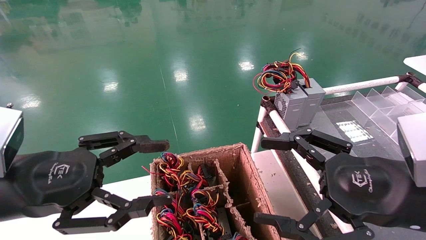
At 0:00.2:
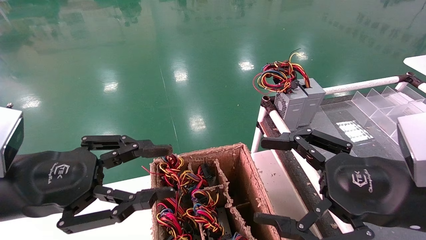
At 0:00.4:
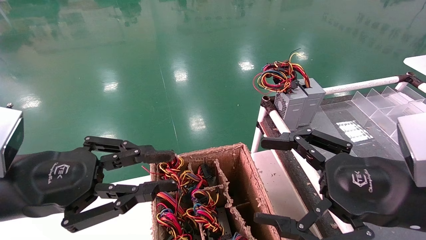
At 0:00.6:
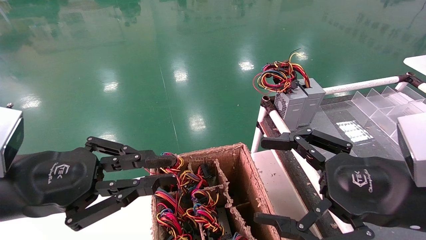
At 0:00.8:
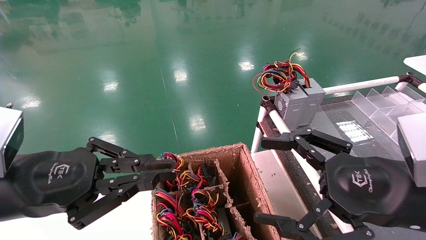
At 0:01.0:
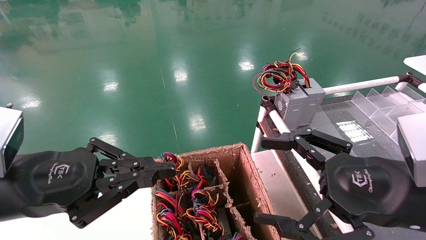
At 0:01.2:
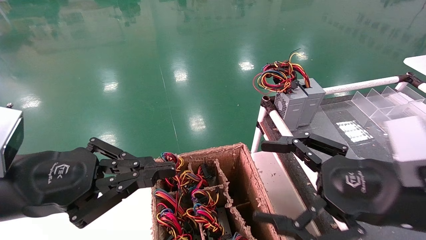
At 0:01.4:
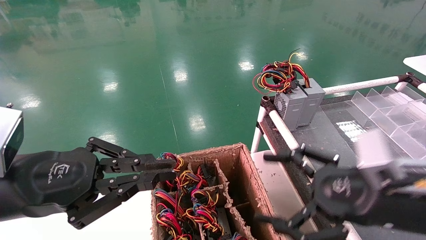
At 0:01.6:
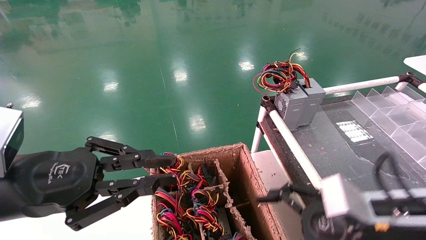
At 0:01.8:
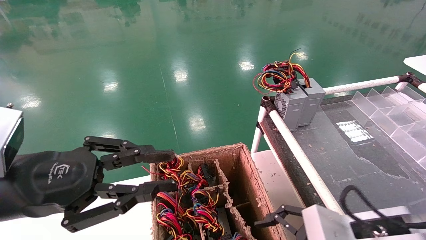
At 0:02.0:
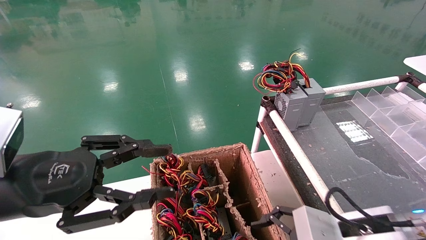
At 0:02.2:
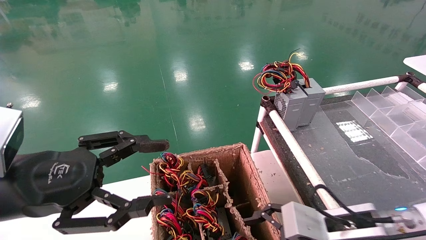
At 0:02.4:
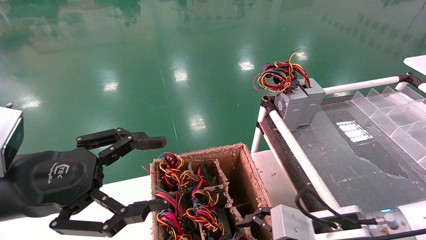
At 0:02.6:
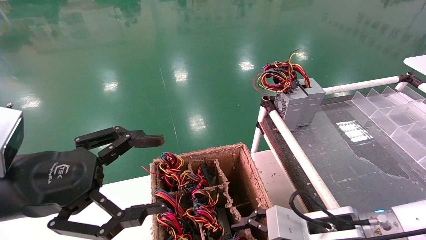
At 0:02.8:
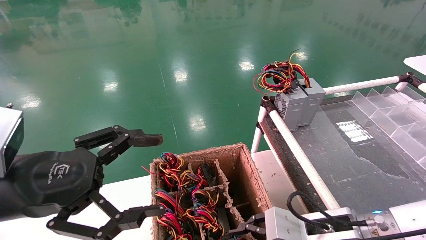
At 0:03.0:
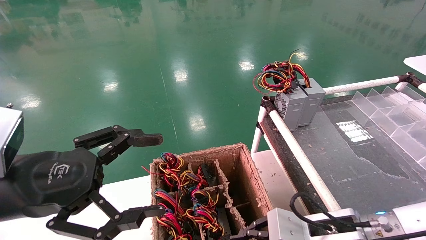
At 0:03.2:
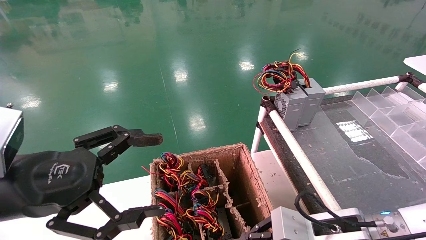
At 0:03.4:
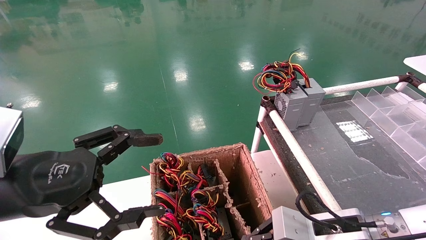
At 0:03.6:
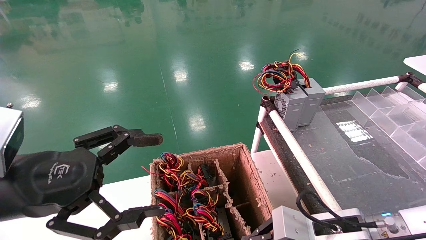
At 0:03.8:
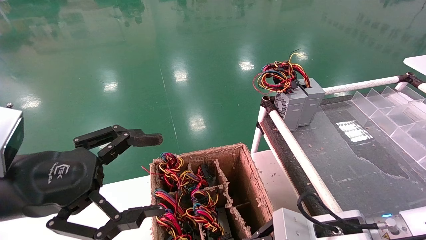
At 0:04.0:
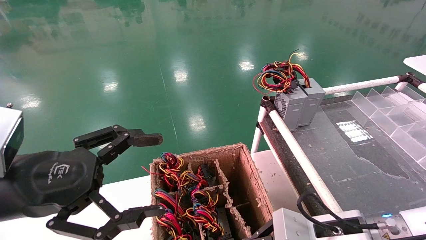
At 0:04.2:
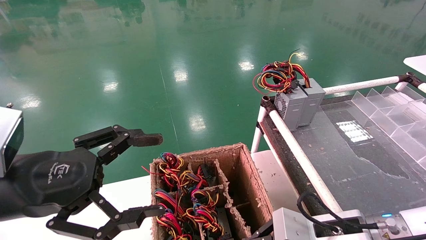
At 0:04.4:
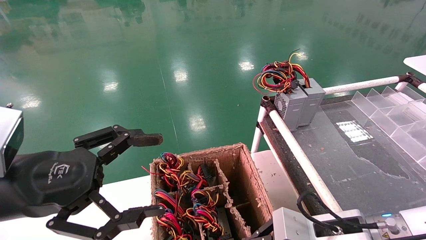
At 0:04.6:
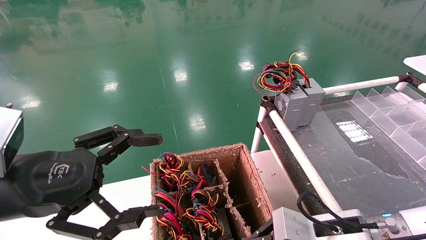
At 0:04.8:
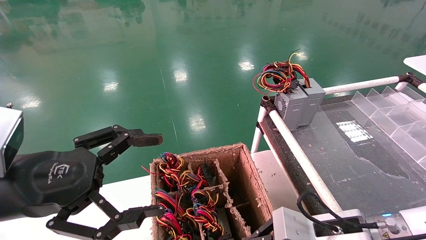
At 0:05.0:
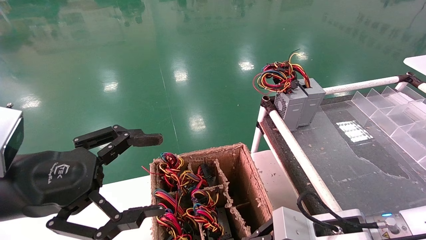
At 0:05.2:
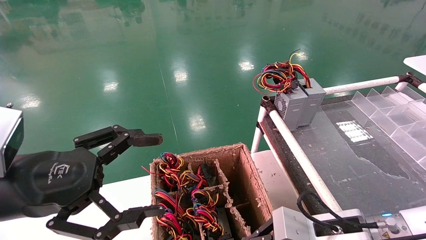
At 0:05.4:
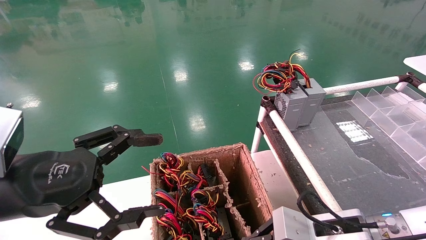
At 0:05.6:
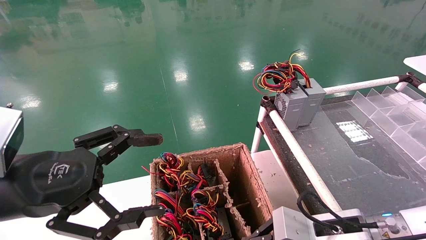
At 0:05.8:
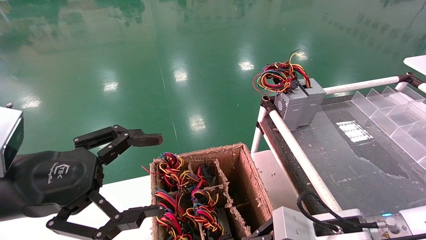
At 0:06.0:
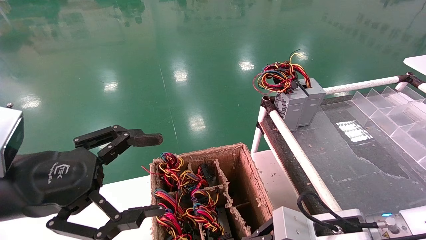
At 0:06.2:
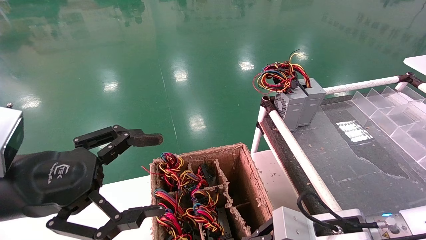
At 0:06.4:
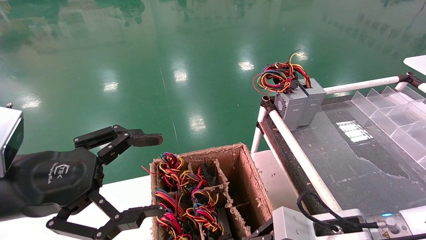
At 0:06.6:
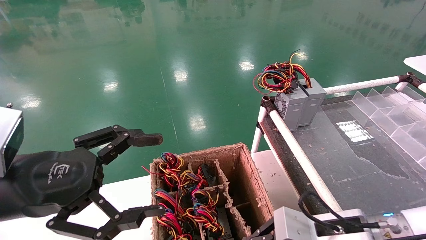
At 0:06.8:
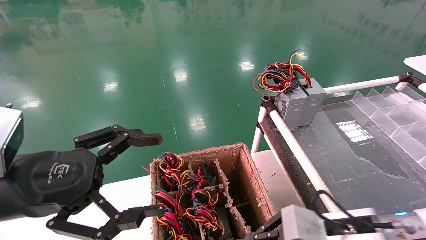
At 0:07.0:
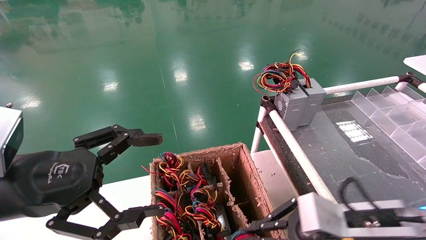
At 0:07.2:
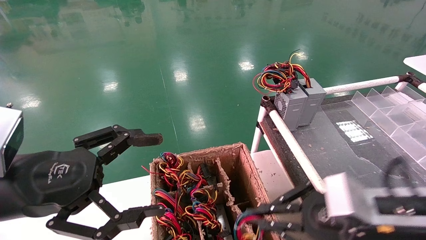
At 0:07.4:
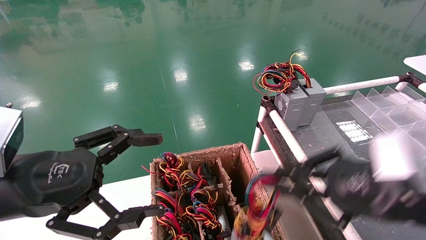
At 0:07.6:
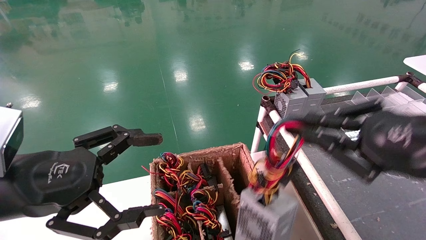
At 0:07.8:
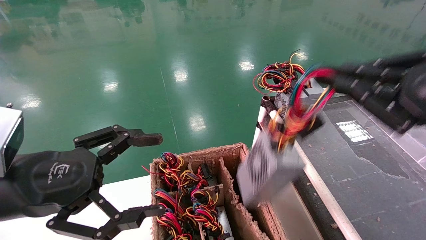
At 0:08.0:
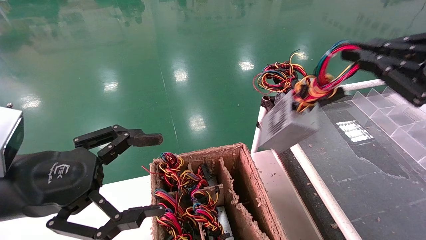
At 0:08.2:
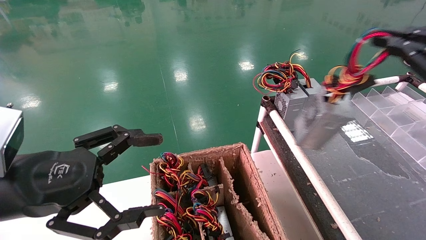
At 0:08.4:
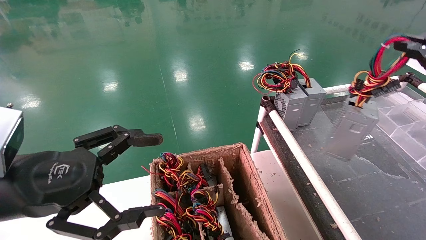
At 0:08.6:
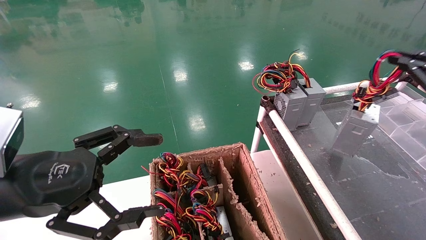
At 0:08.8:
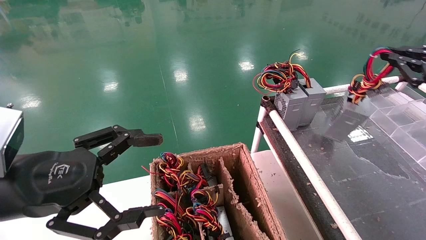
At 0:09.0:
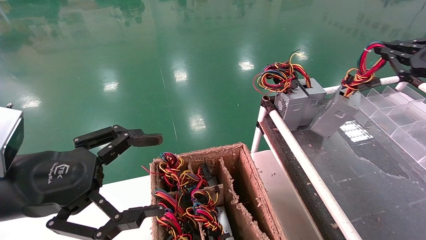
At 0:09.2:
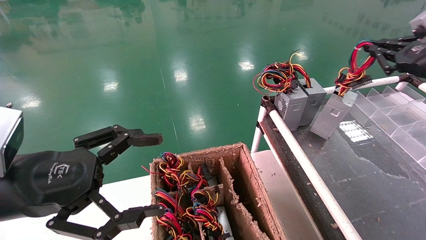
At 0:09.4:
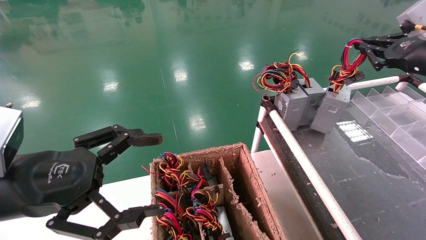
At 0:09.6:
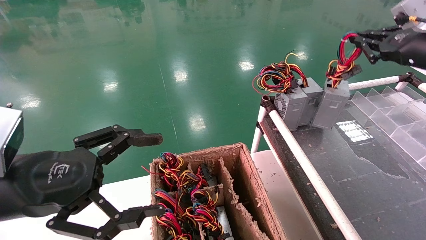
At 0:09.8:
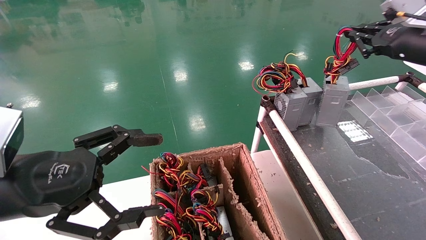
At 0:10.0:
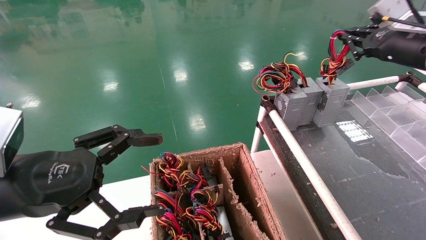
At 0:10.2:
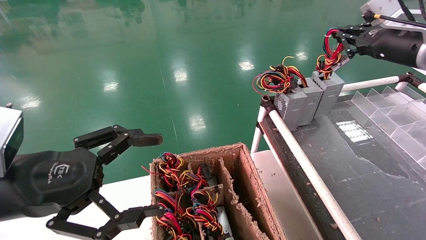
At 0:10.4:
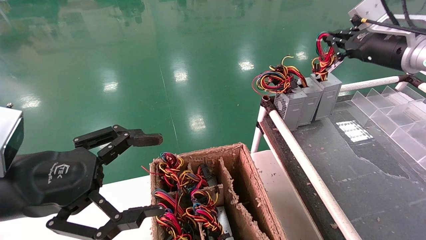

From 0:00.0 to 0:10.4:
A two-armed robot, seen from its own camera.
Step, from 0:01.0 to 0:03.6: Grab and lift the power supply from the large box.
From 0:00.0 to 0:01.4: The left gripper closes up.
From 0:01.4 to 0:03.0: The right gripper is displaced downward by approximately 10 cm, and closes. The left gripper opens.
From 0:03.0 to 0:04.4: The right gripper closes.
From 0:04.4 to 0:06.0: Both grippers stay put.
From 0:06.0 to 0:07.4: The right gripper is displaced upward and to the right by approximately 15 cm.
From 0:07.4 to 0:09.0: The right gripper goes some 25 cm to the right, forward and upward.
From 0:09.0 to 0:10.4: The right gripper travels forward and to the left by roughly 10 cm.

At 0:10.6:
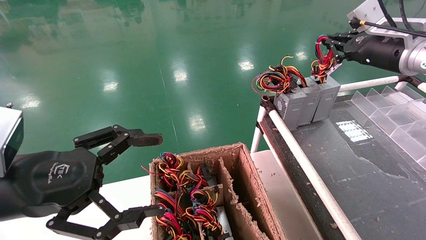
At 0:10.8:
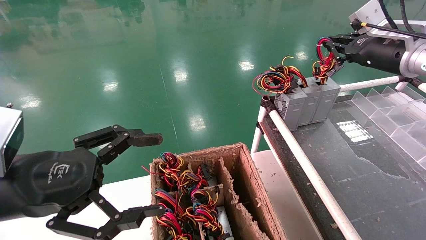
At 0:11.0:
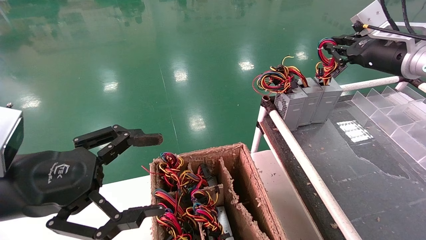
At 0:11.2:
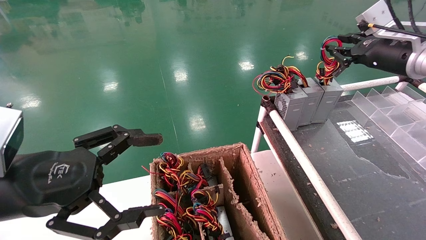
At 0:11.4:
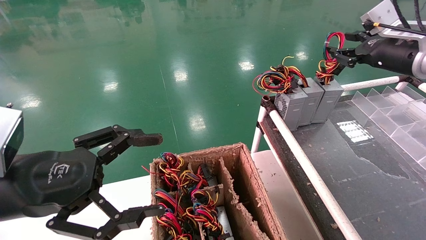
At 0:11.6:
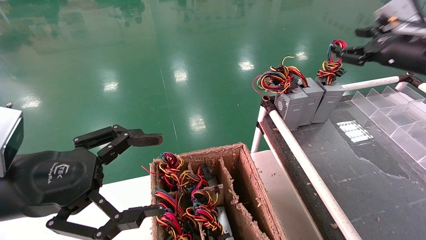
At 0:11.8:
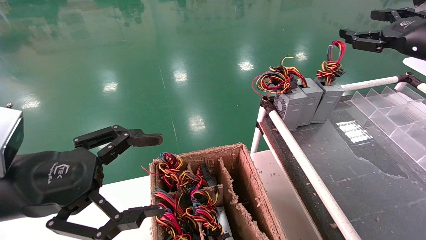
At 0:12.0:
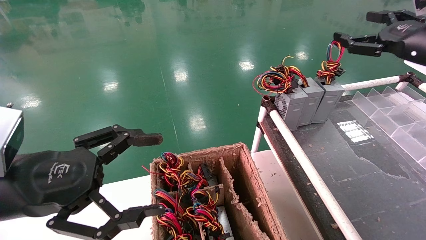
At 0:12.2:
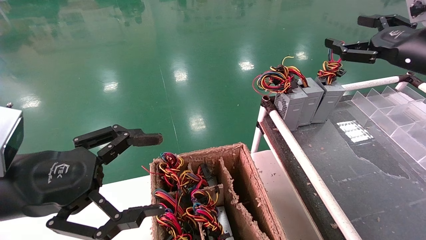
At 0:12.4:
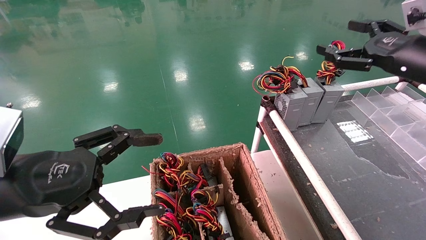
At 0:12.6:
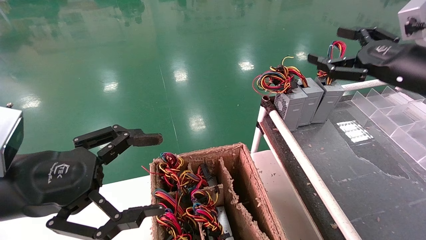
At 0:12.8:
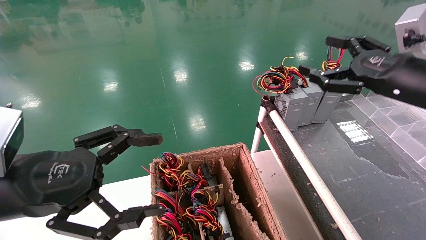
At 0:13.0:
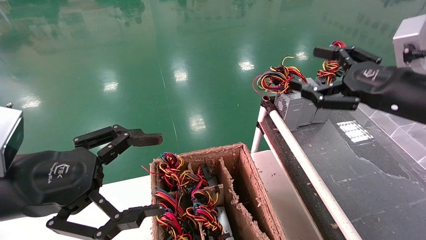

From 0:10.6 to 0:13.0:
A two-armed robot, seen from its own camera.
From 0:10.6 to 0:11.8: The right gripper shifts by about 5 cm, and opens its fingers.
From 0:11.8 to 0:13.0: The right gripper goes about 15 cm backward, to the left and downward, and opens.
